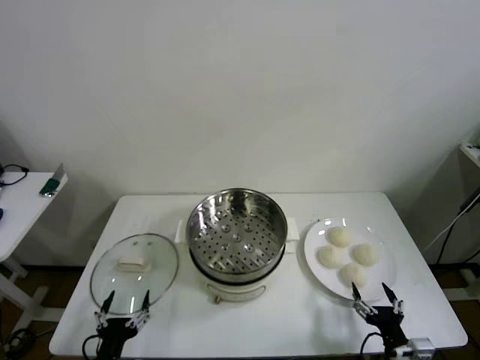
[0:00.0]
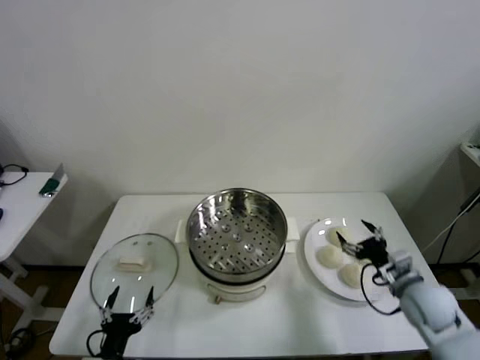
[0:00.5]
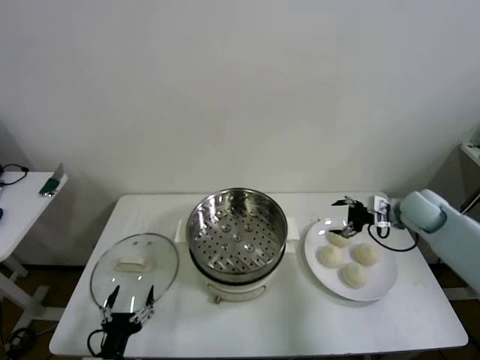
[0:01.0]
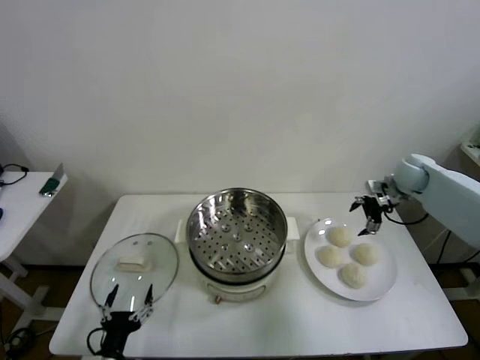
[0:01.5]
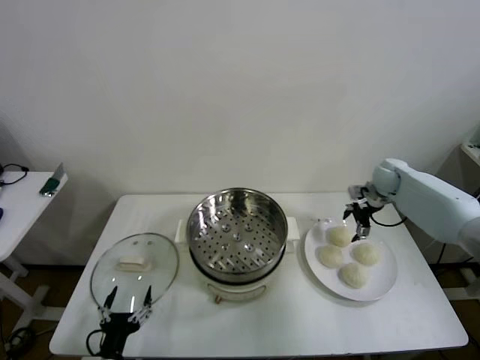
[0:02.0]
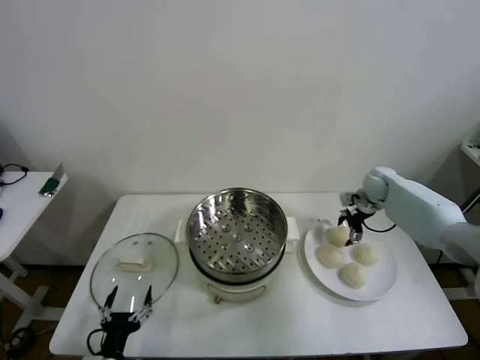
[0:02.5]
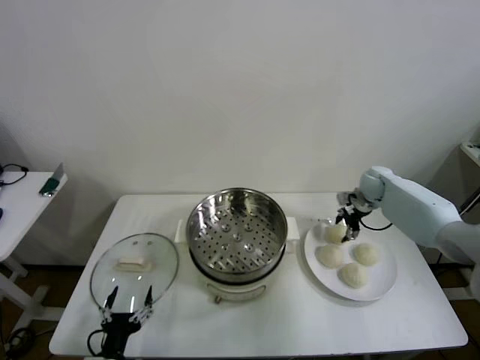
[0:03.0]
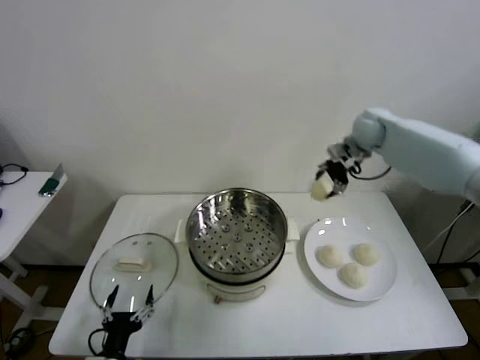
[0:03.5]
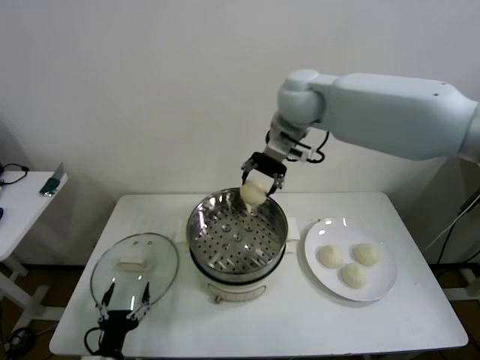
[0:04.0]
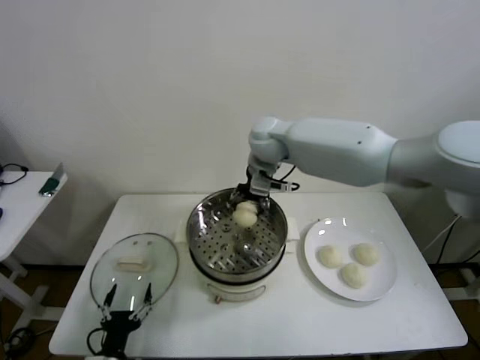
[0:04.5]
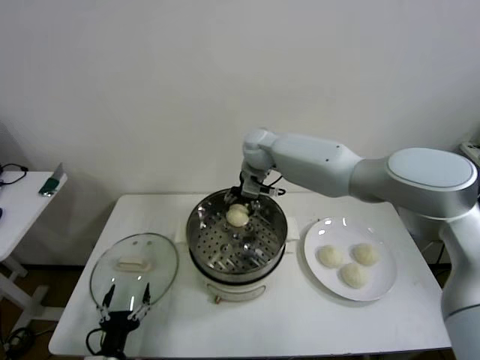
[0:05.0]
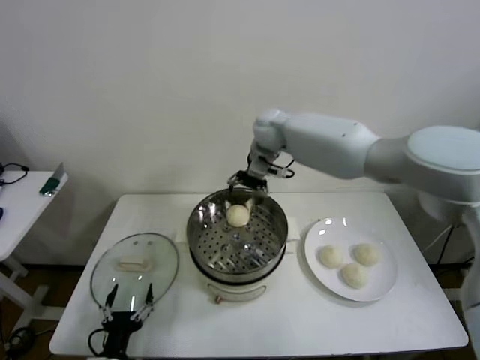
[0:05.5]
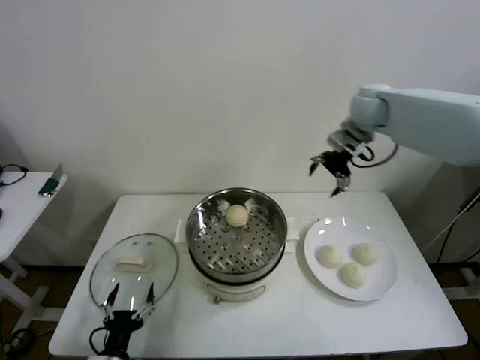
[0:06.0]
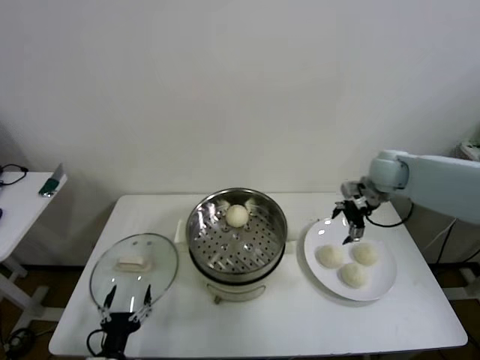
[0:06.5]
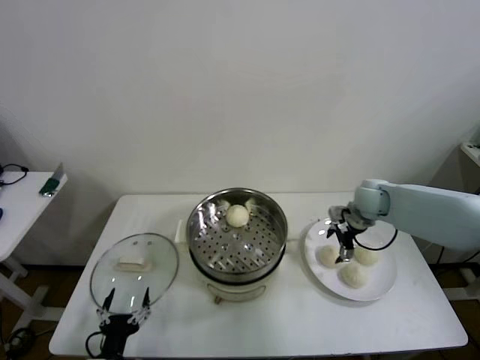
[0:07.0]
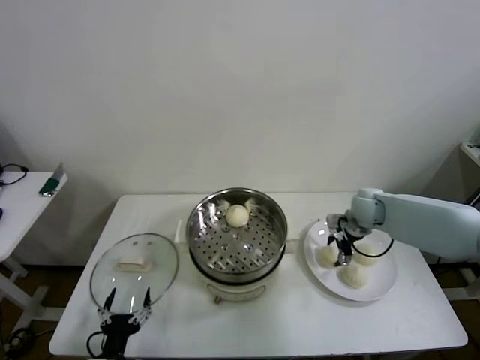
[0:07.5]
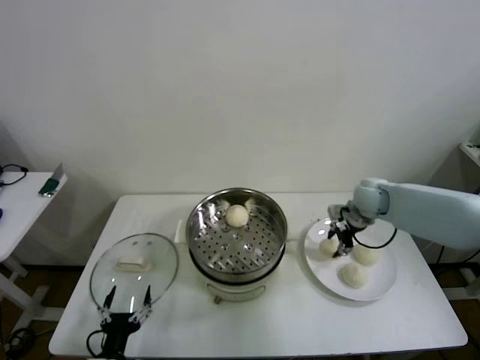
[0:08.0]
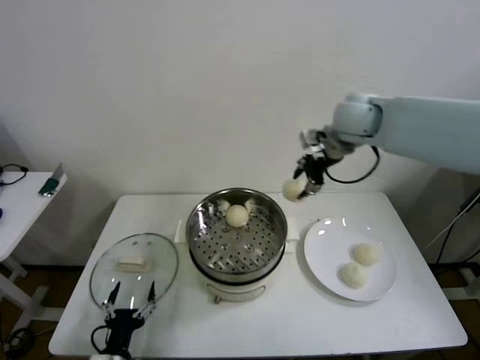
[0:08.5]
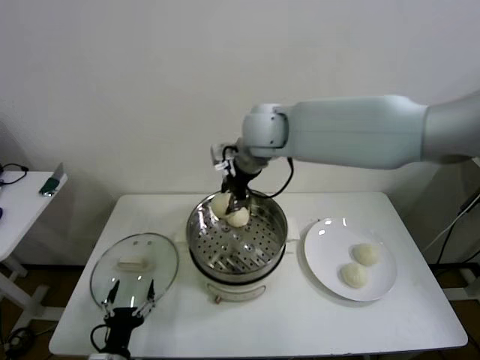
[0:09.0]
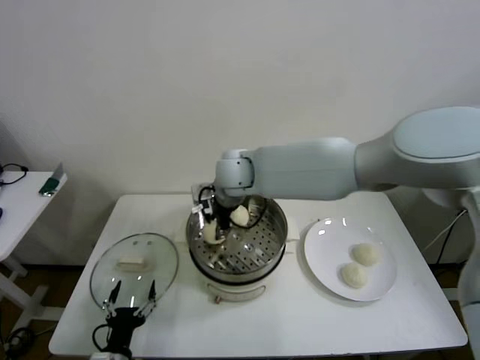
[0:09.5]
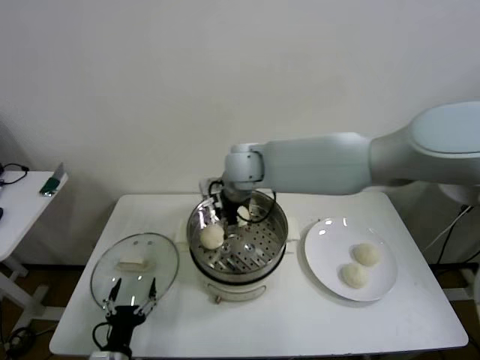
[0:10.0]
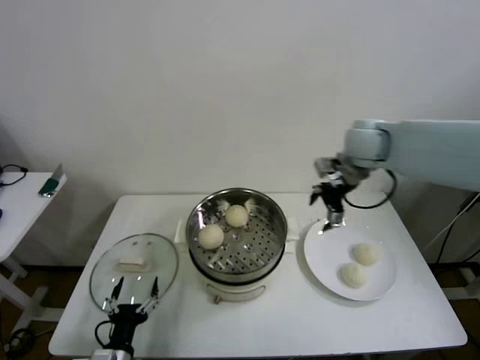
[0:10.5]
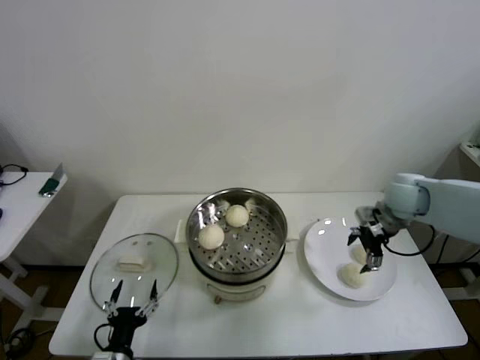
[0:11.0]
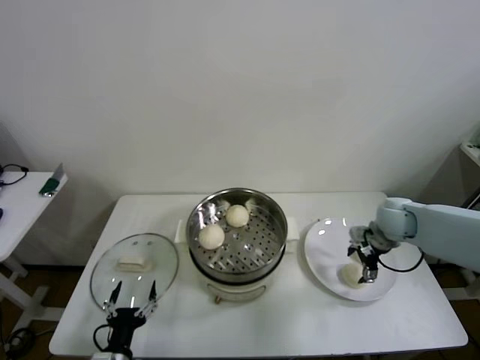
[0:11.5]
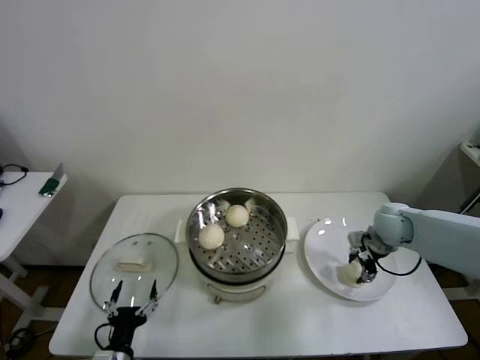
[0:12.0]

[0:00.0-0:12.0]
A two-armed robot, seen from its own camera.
Step, 0:00.0 to 0:02.5: Grasp the baozi in the plate with right gripper.
Step, 0:03.0 to 0:05.0: Place the baozi on the steamer with right gripper.
Step, 0:05.5 to 0:07.5: Grasp the baozi in the plate with right gripper.
Step, 0:08.0 to 0:09.5: Place the baozi on the steamer with right gripper.
Step, 0:10.0 to 0:12.0: Grasp the baozi in the plate with right gripper.
0:02.0 to 0:04.0: The right gripper shifts about 40 cm to the left and upward, and closes its fingers.
0:04.0 to 0:06.0: The right gripper travels to the right by roughly 20 cm, and opens.
0:06.0 to 0:08.0: The right gripper travels downward by roughly 15 cm, and closes up.
0:08.0 to 0:10.0: The right gripper moves to the left, approximately 30 cm, and opens up.
0:10.0 to 0:12.0: The right gripper moves to the right and downward, about 40 cm, and closes its fingers.

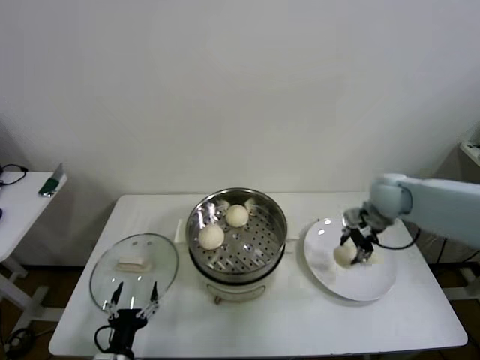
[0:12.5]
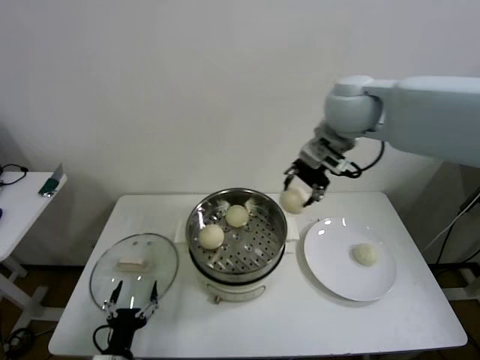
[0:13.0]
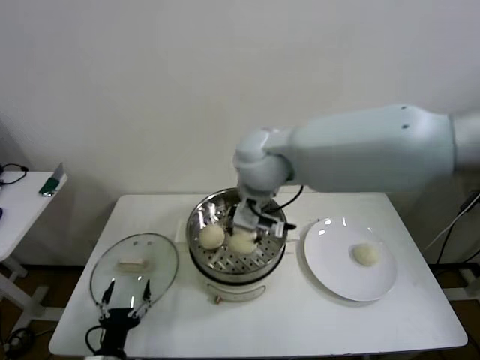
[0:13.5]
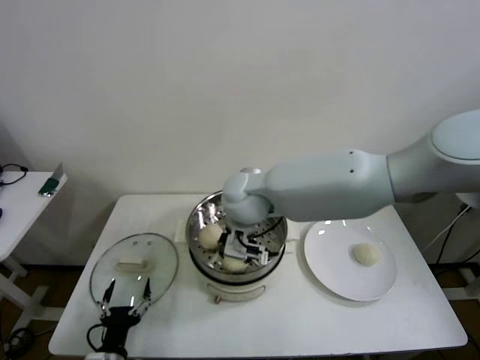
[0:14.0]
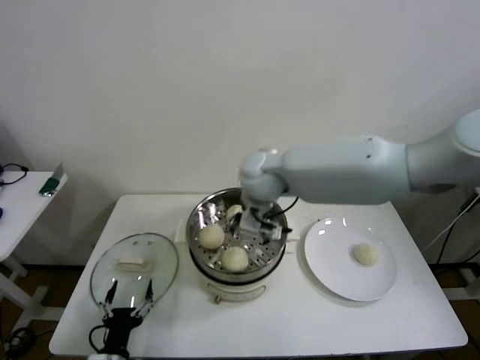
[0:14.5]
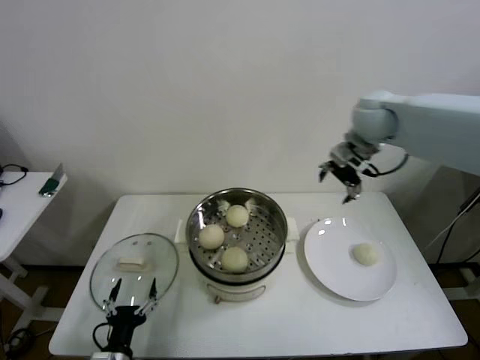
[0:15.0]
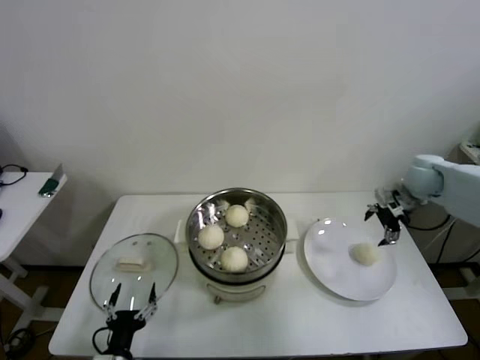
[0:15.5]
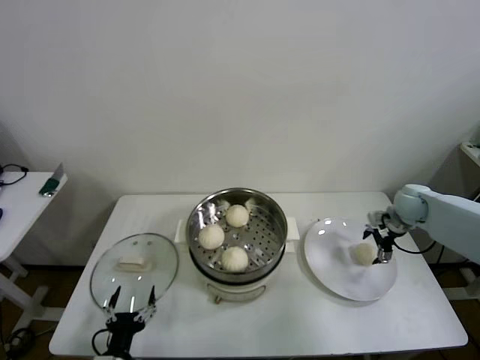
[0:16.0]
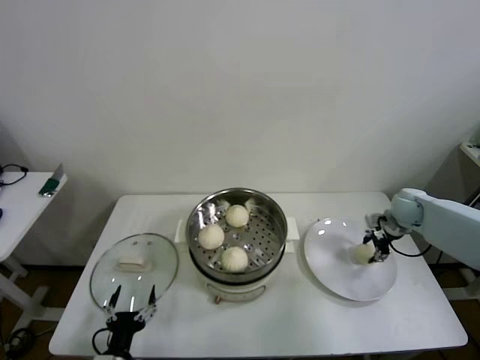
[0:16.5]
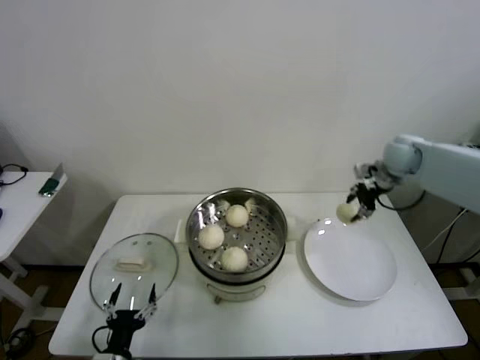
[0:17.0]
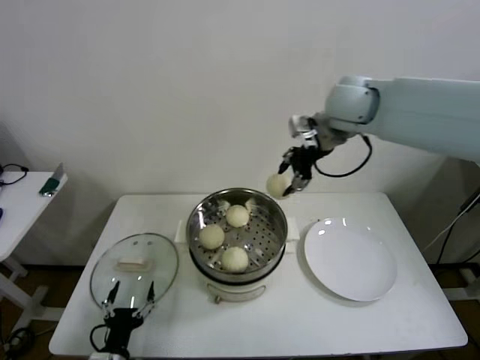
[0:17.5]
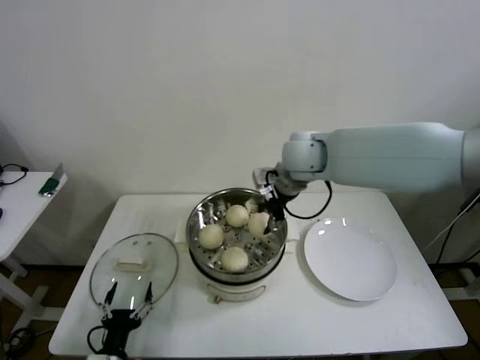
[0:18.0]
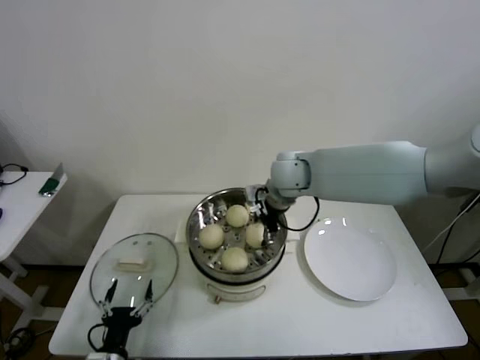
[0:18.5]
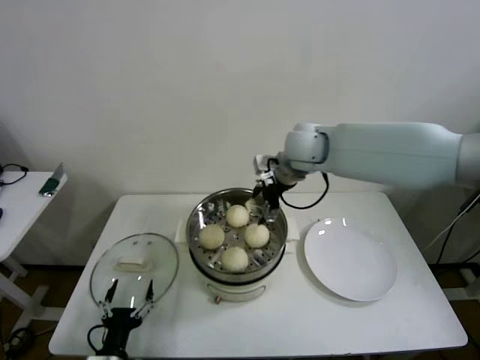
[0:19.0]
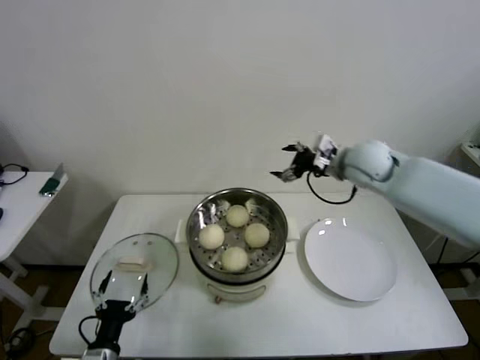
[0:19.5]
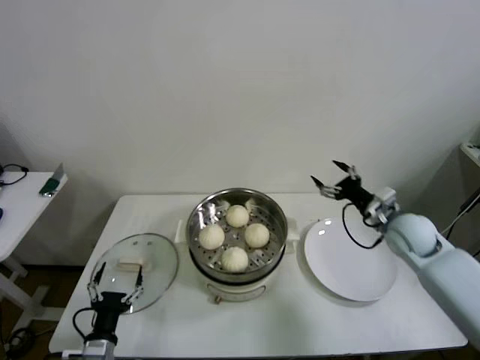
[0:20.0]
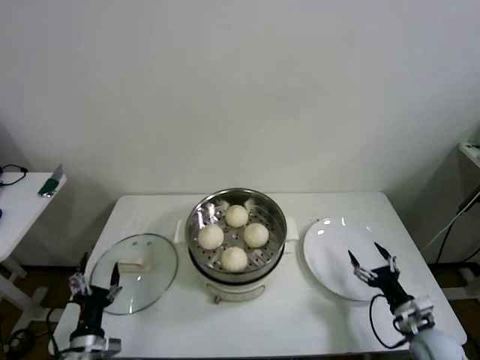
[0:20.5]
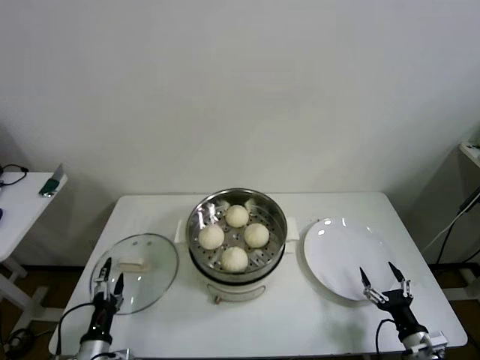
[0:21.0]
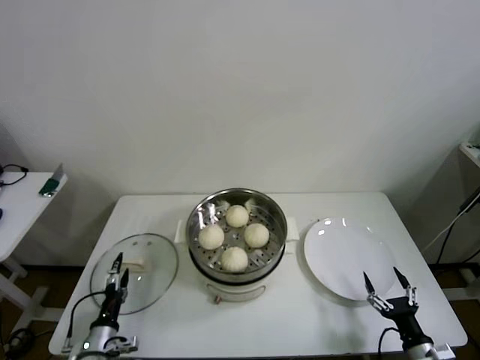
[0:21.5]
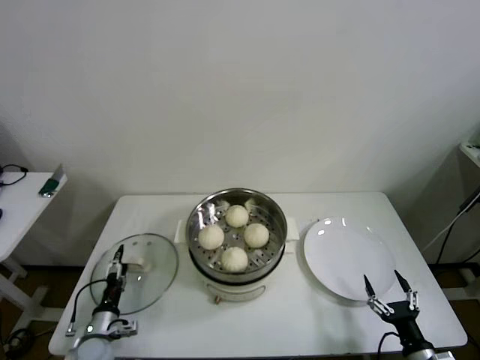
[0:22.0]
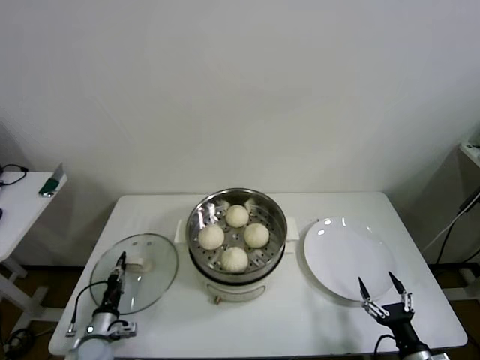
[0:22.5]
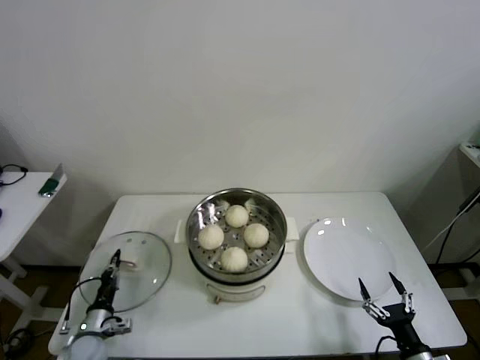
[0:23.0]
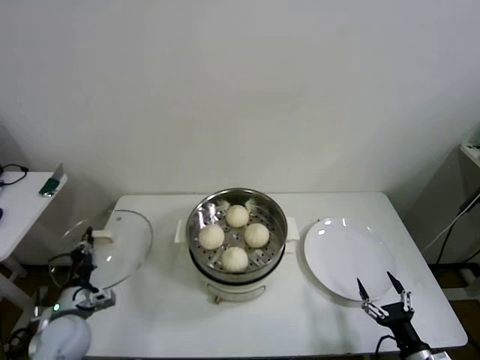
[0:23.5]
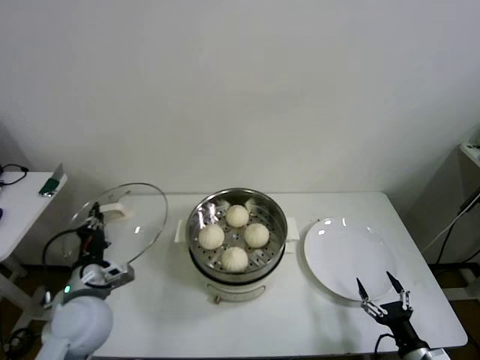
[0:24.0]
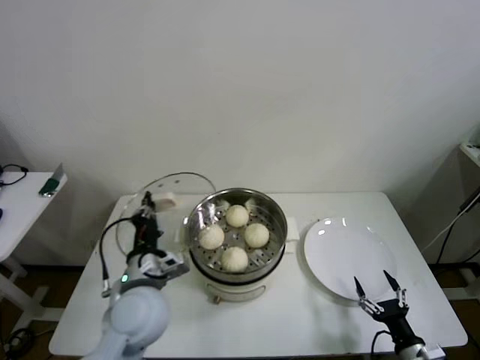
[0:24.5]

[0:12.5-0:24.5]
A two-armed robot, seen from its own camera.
Step, 0:12.5 to 0:14.0: Place the baozi on the steamer with right gripper.
Step, 0:14.5 to 0:16.5: Grasp the baozi in the plate with right gripper.
Step, 0:17.0 to 0:18.5: Place the baozi on the steamer with right gripper.
Step, 0:19.0 to 0:22.5: Grasp the pot lid with left gripper.
0:12.5 to 0:14.5: The right gripper heads to the left, covering about 30 cm, and opens up.
0:14.5 to 0:16.5: The right gripper is displaced to the right and downward by approximately 40 cm, and closes its fingers.
0:16.5 to 0:18.5: The right gripper shifts approximately 35 cm to the left and upward, and opens.
0:18.5 to 0:20.5: The right gripper shifts some 50 cm to the right, downward and backward, and opens.
0:20.5 to 0:22.5: The right gripper heads backward, covering approximately 10 cm, while the left gripper is displaced downward, forward and to the left by approximately 15 cm, and closes its fingers.
0:22.5 to 0:24.5: The left gripper goes some 30 cm upward and to the right.

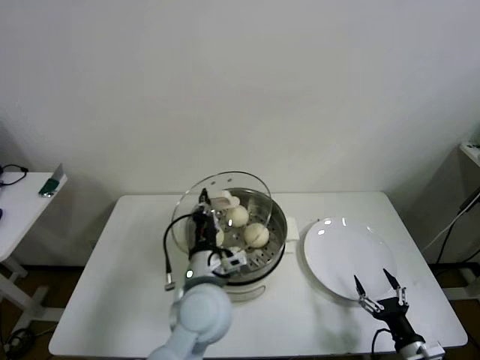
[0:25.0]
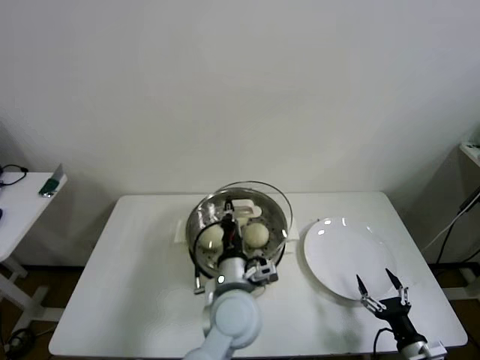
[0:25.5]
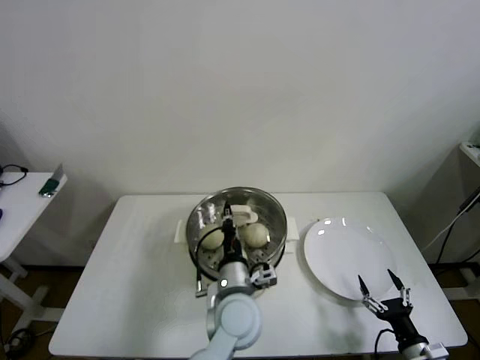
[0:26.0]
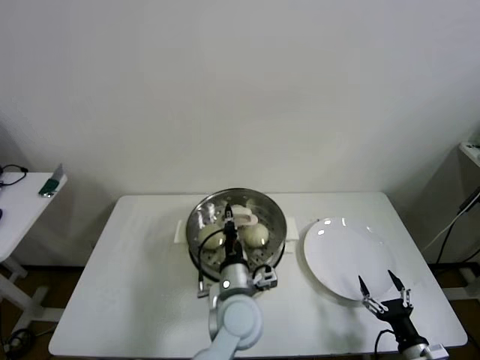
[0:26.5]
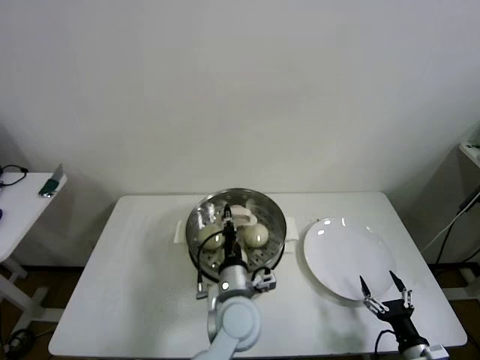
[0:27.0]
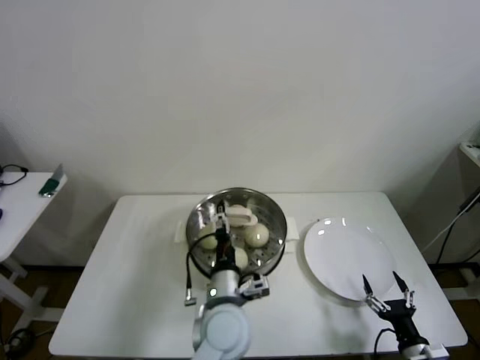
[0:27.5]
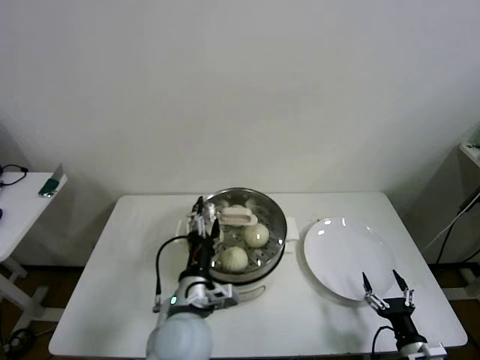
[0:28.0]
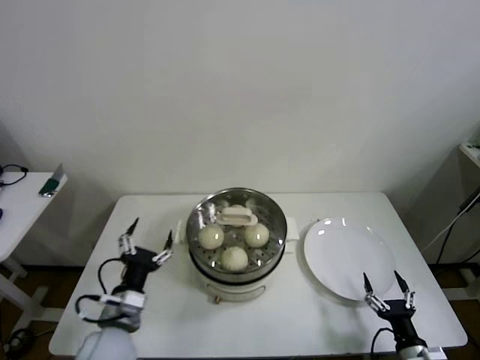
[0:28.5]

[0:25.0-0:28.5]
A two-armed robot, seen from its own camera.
Step, 0:25.0 to 0:27.5: Place the pot lid on the steamer with left gripper.
0:25.0 to 0:27.0: The left gripper moves downward and to the right, about 10 cm.
0:27.0 to 0:28.5: The left gripper is displaced to the left by some 20 cm, and opens its fingers.
